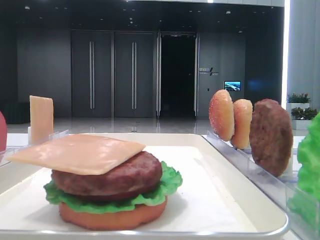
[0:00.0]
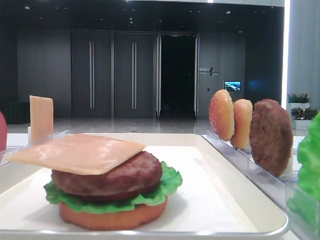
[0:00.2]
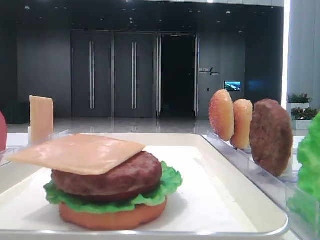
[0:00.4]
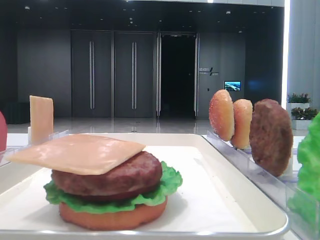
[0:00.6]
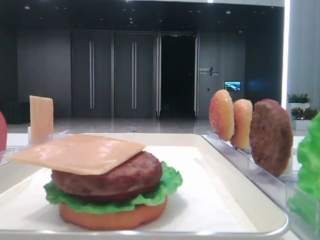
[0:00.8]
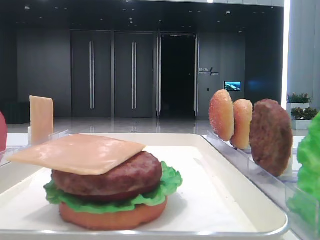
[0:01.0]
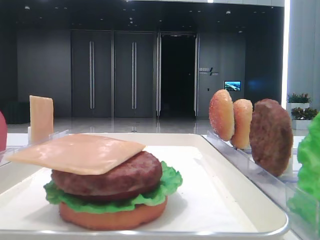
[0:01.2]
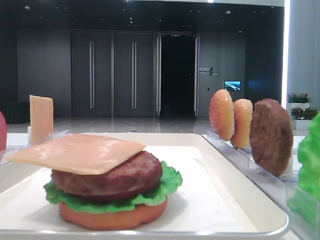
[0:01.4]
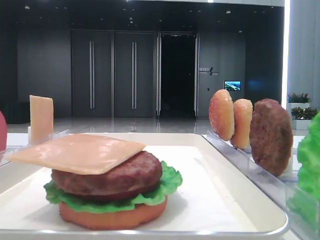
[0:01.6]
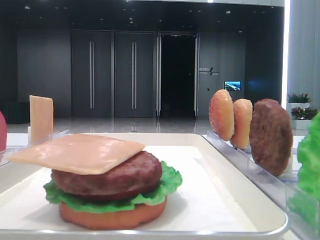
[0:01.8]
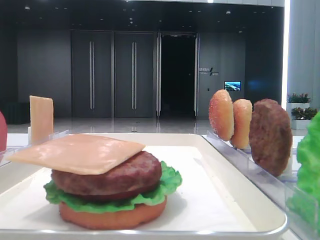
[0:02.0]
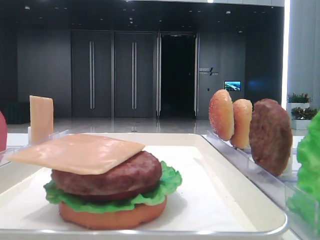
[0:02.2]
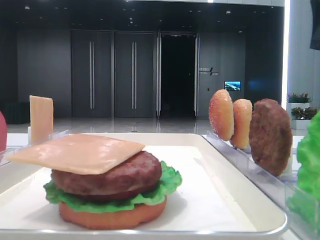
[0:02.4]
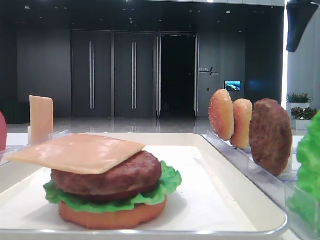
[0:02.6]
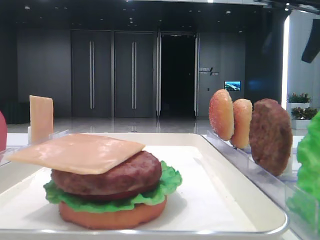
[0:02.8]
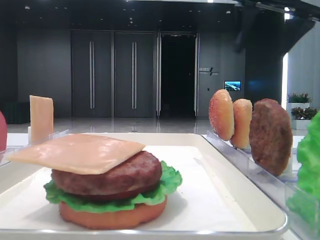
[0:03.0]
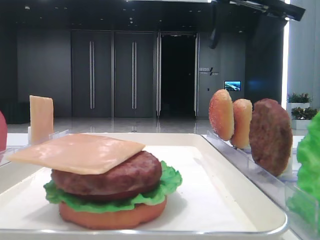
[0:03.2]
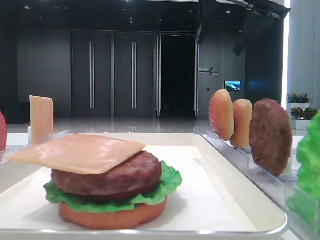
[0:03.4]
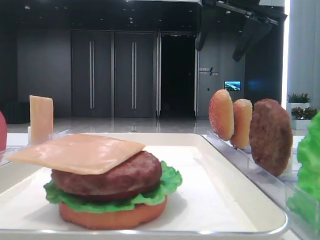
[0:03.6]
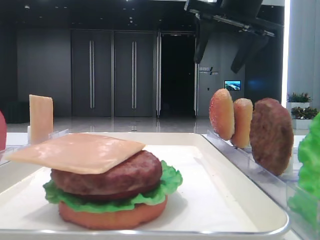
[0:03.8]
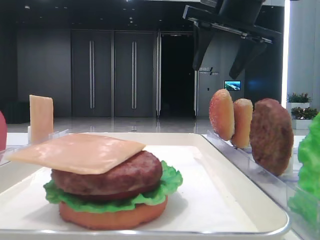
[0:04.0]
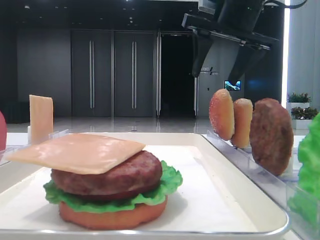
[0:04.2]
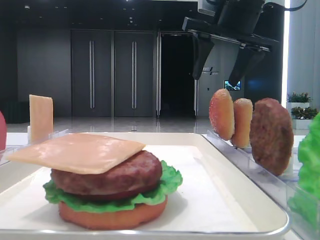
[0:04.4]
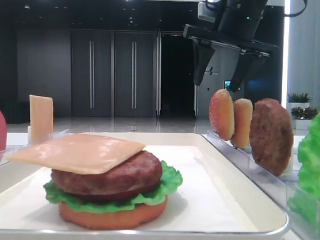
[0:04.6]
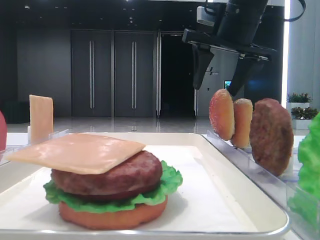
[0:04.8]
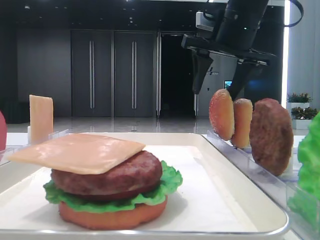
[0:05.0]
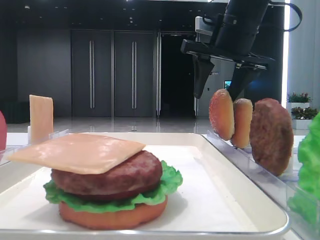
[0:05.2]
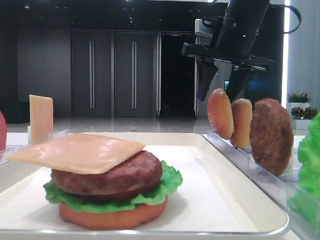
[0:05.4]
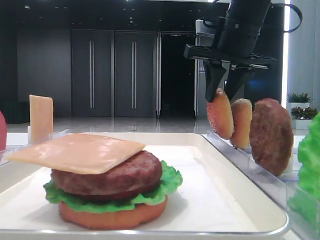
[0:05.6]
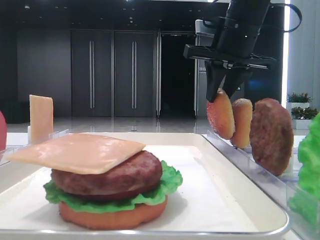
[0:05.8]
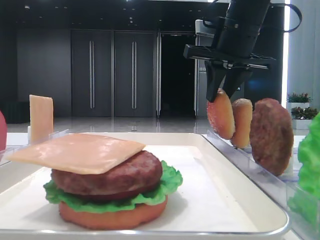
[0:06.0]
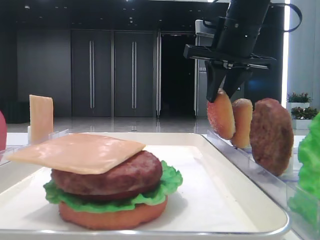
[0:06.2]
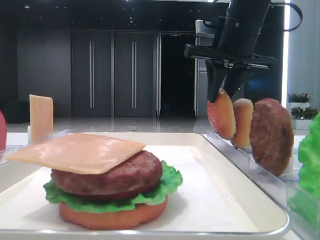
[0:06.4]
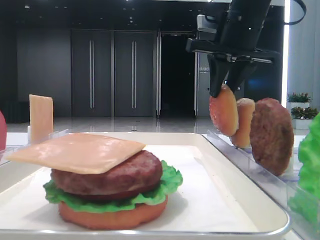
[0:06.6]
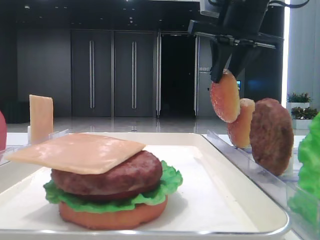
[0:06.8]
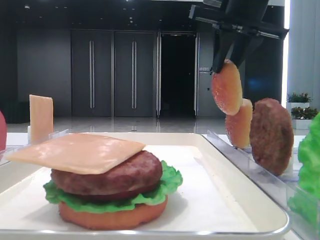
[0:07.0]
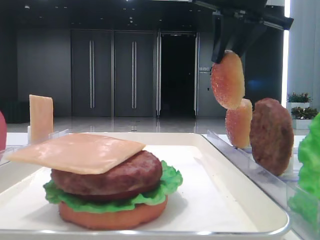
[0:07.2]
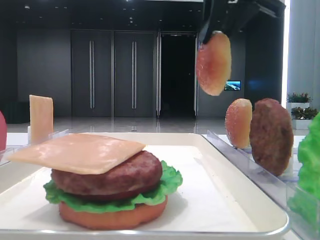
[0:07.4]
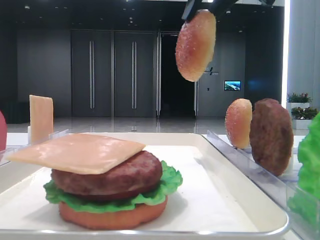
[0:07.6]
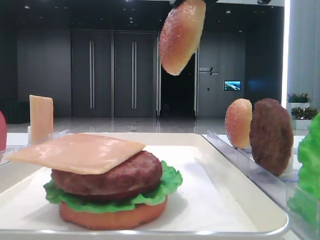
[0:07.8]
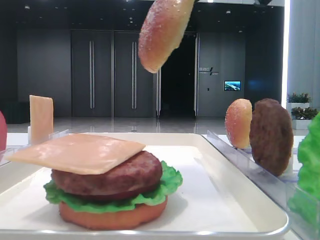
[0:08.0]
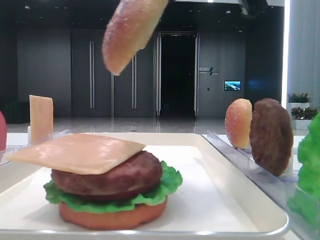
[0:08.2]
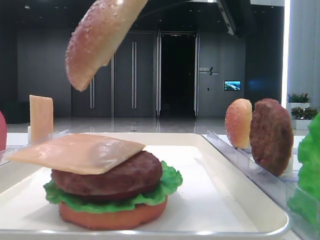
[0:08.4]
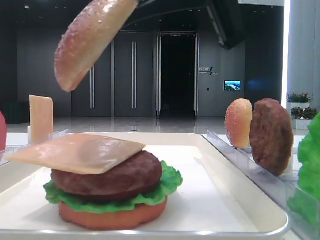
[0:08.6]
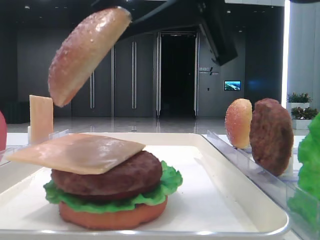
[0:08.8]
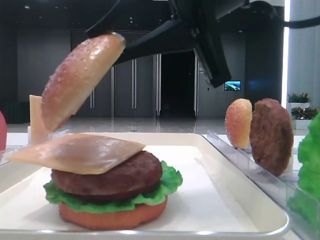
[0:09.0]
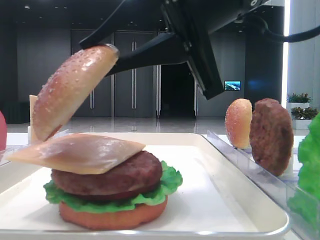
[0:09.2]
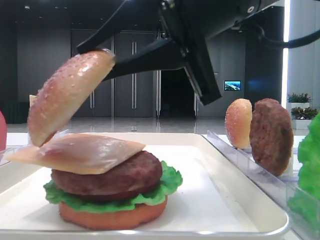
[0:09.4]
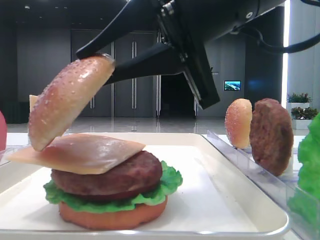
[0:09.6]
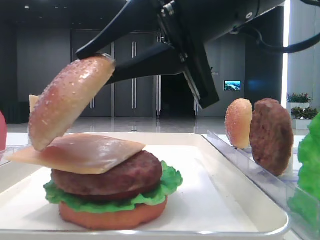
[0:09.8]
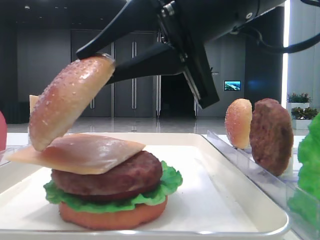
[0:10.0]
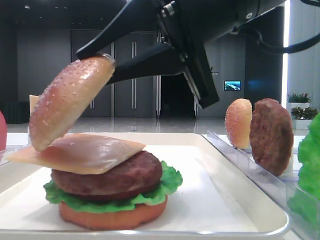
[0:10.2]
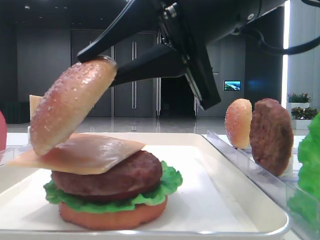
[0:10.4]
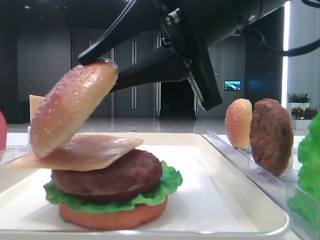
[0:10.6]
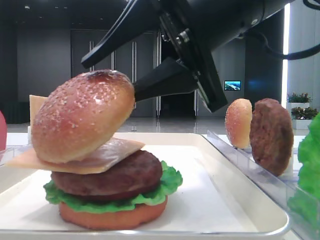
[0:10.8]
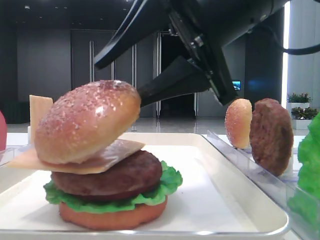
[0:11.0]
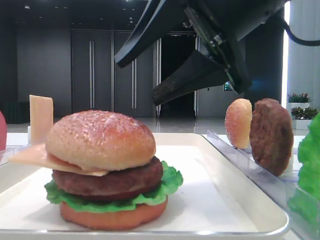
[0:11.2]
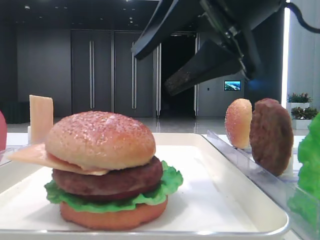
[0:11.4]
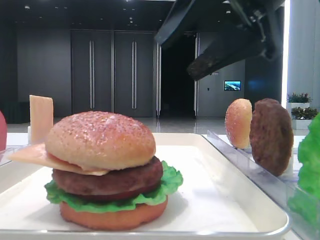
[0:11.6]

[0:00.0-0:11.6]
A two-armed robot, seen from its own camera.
Step, 0:00.0 to 0:05.8: Pick up the top bread slice with the right hand.
Step, 0:06.0 to 0:11.0: Place the top bread slice on the cheese with the right hand.
0:01.4 to 0:02.8: The right gripper shifts approximately 30 cm forward.
0:02.8 to 0:04.4: The right gripper moves to the left, about 10 cm.
0:04.4 to 0:05.8: The right gripper closes up.
0:05.8 to 0:07.2: The right gripper moves upward, about 5 cm.
0:07.2 to 0:08.8: The right gripper shifts about 15 cm backward, downward and to the left.
0:08.8 to 0:10.2: The grippers move only a little.
0:10.2 to 0:11.6: The right gripper is displaced to the right by roughly 5 cm, and opens its fingers.

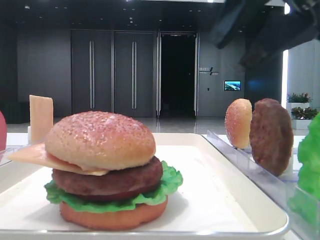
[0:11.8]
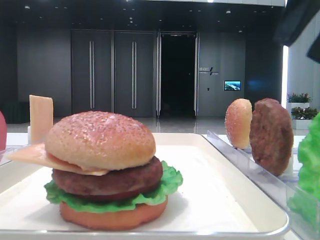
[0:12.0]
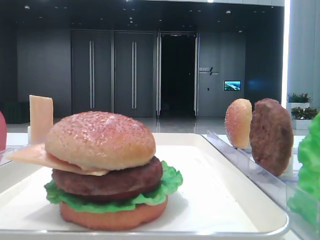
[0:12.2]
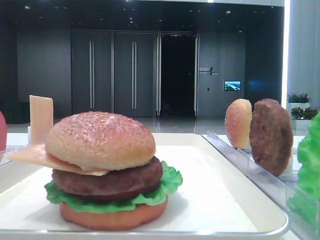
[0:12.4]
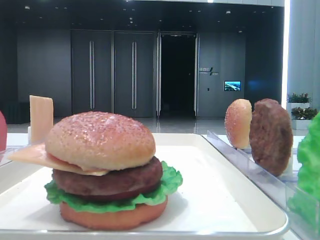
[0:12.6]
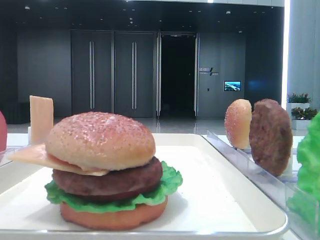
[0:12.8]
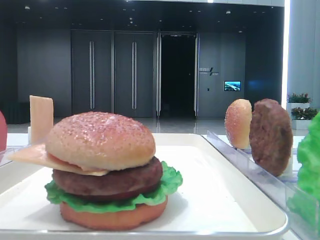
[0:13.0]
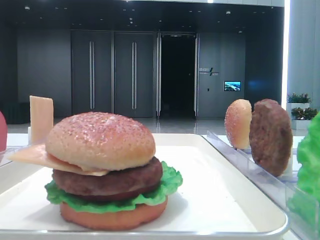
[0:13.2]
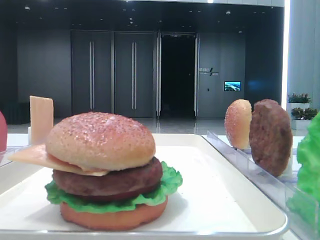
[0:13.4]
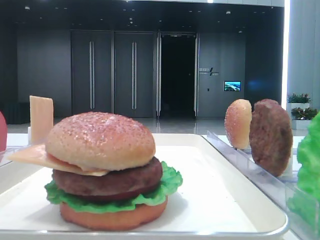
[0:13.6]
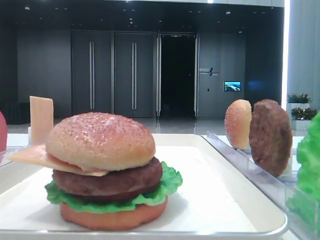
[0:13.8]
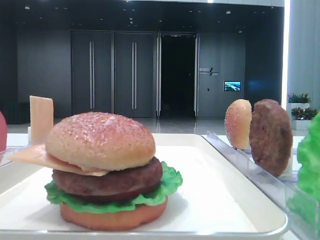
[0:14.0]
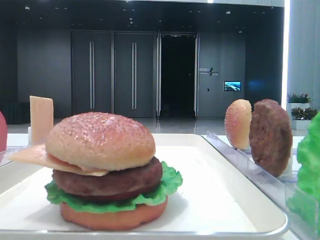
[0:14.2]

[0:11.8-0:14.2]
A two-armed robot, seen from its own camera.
0:11.8 to 0:13.0: The right gripper heads to the right and backward, covering about 20 cm.

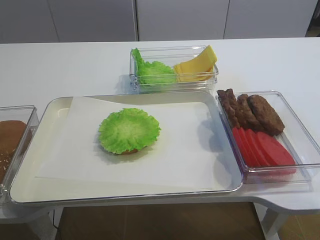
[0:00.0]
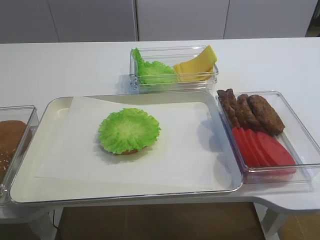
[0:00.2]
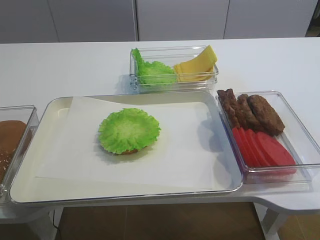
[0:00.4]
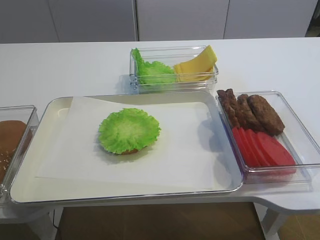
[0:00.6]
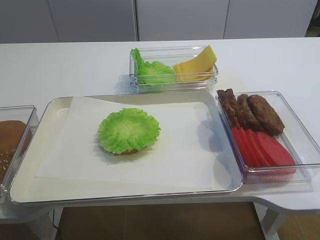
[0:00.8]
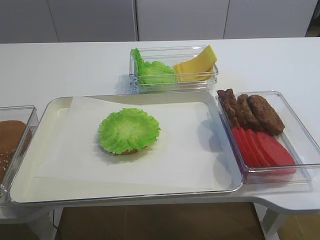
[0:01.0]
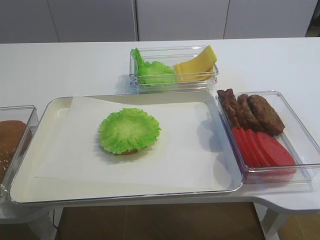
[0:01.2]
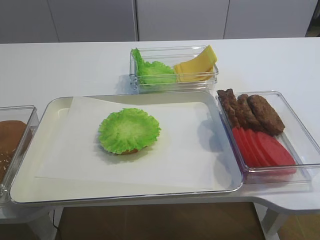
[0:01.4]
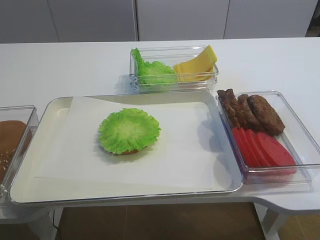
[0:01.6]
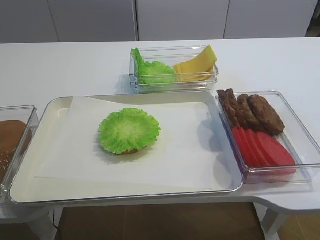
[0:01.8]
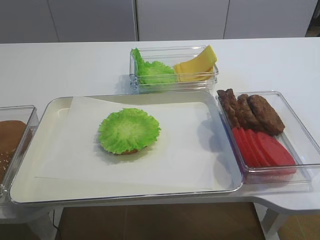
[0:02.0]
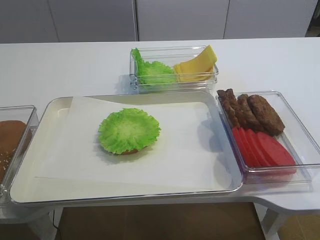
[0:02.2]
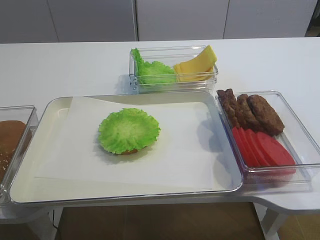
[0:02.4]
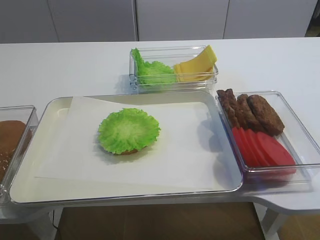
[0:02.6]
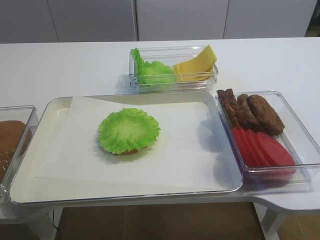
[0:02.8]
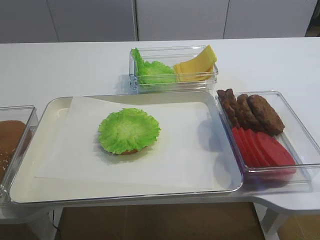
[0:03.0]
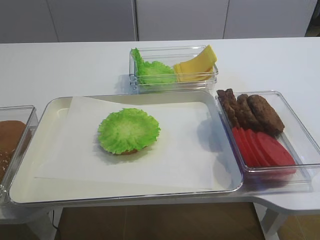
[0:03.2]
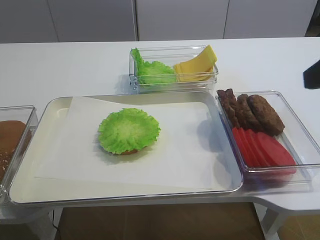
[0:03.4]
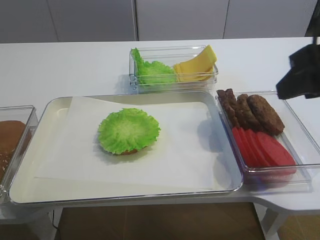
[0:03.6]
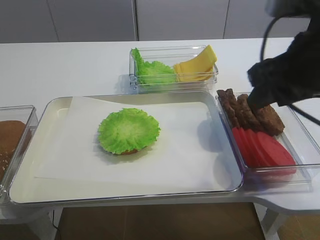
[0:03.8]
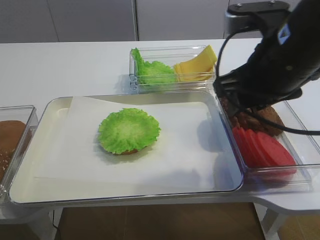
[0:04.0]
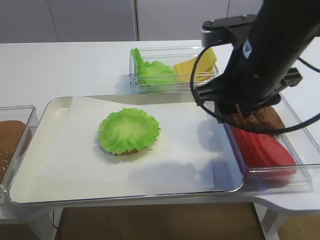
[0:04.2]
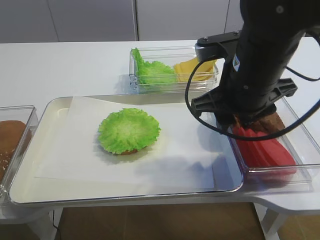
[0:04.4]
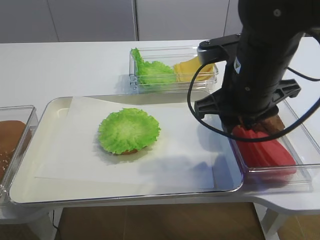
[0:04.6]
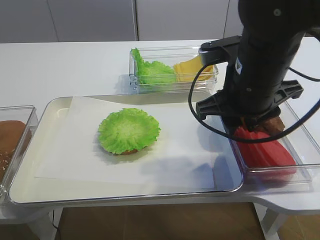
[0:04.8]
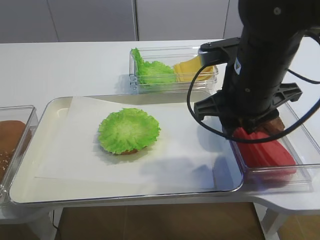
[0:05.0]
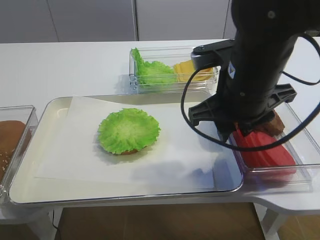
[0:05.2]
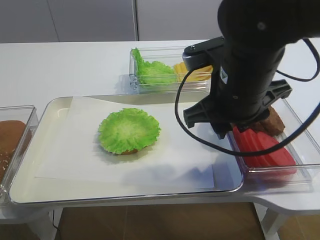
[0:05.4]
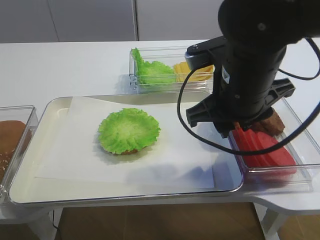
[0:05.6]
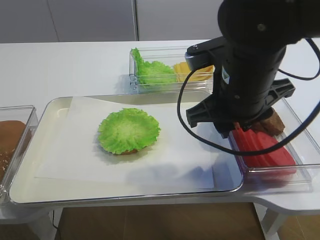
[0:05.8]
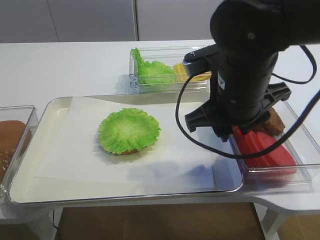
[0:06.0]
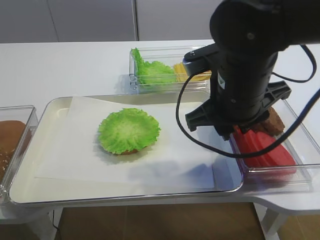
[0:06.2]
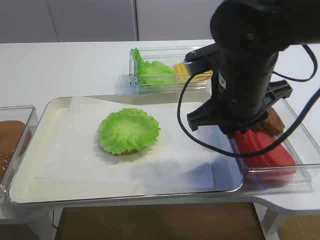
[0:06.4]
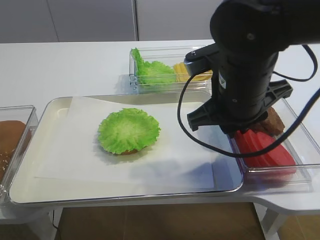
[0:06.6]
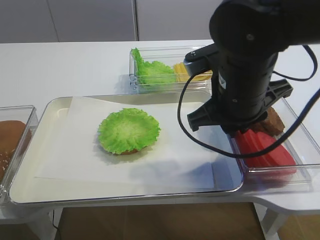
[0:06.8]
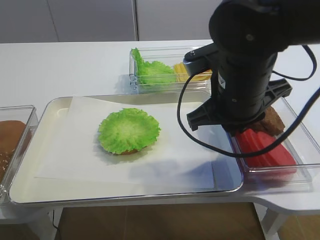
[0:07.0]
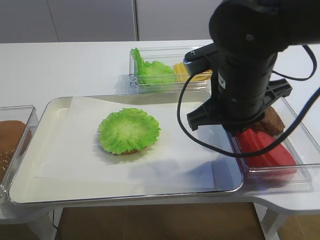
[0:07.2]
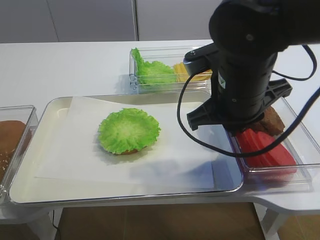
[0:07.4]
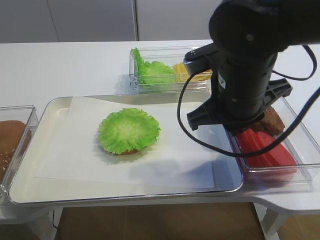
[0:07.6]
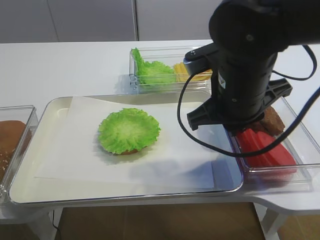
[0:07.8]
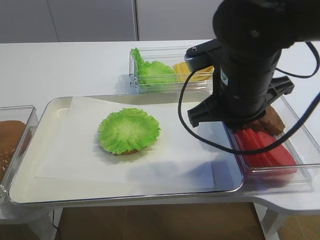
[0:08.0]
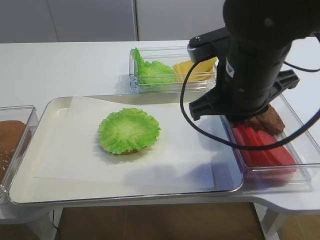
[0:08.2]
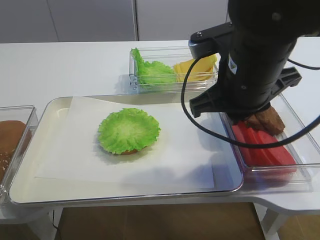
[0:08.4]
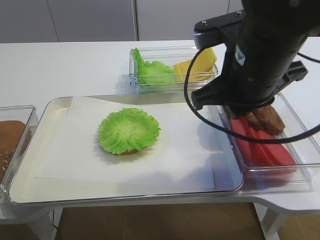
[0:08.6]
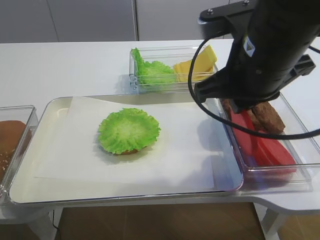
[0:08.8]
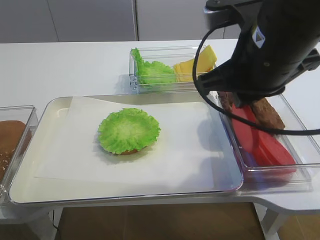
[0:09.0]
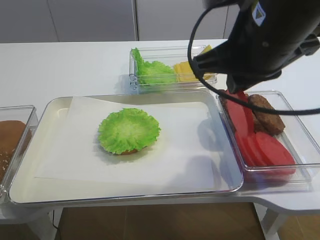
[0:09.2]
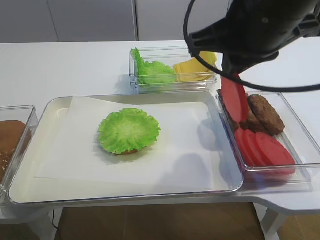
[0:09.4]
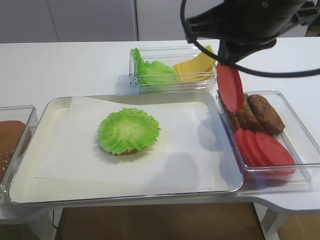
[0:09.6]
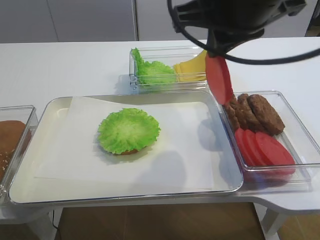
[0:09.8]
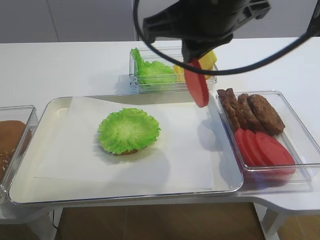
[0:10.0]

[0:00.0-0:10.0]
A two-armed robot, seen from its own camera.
Step, 0:00.0 to 0:08.8: Pick up the tomato slice with the right gripper.
0:01.4 to 0:02.8: The right gripper goes some 10 cm upward and forward, and opens up.
0:02.8 to 0:04.2: The right gripper shifts some 25 cm forward and to the left.
0:04.2 to 0:05.8: The grippers move only a little.
0:05.8 to 0:07.2: The right gripper closes.
0:07.2 to 0:08.6: There are only small adjustments of the grippers.
0:08.6 to 0:10.0: The right gripper goes roughly 10 cm upward and to the left.
